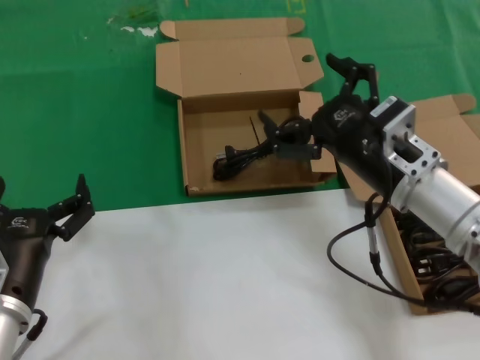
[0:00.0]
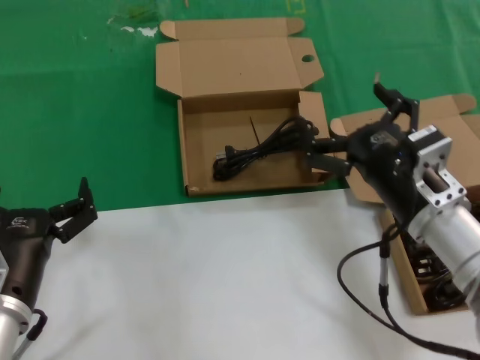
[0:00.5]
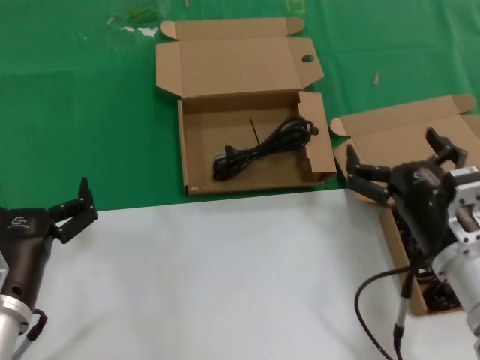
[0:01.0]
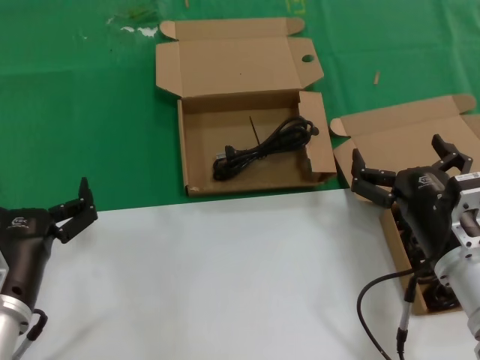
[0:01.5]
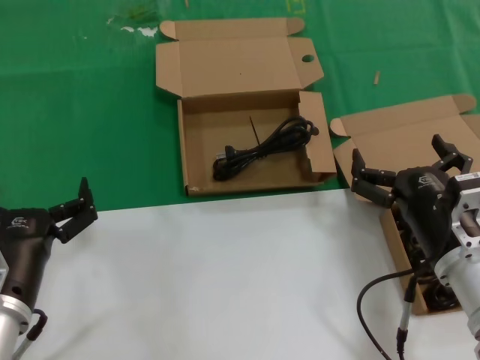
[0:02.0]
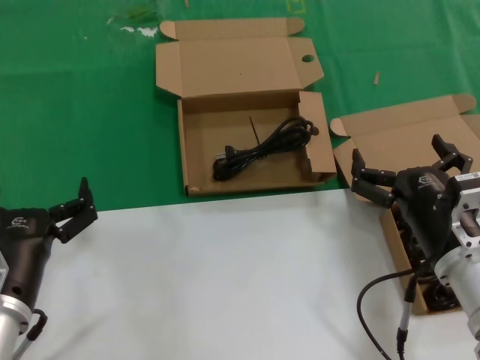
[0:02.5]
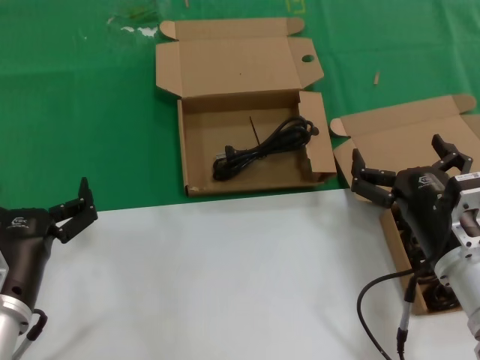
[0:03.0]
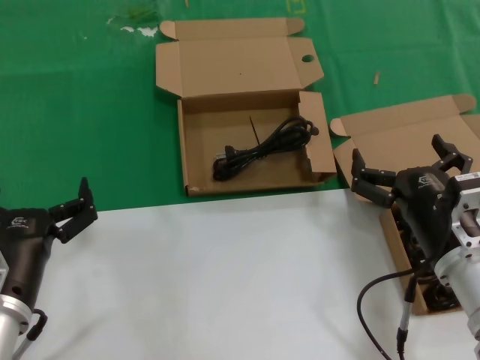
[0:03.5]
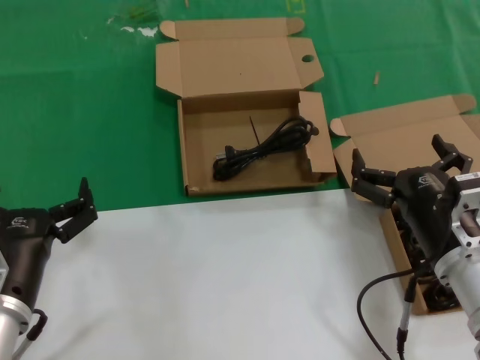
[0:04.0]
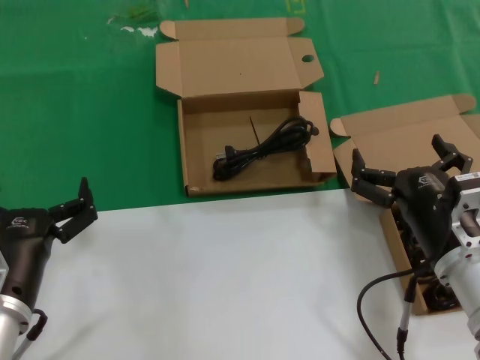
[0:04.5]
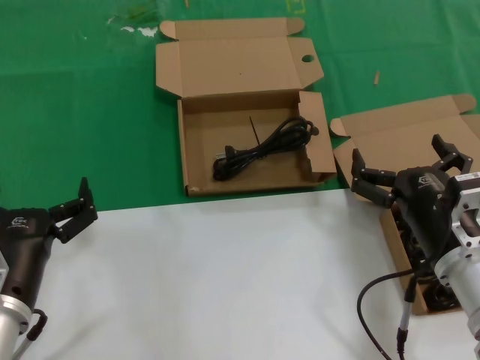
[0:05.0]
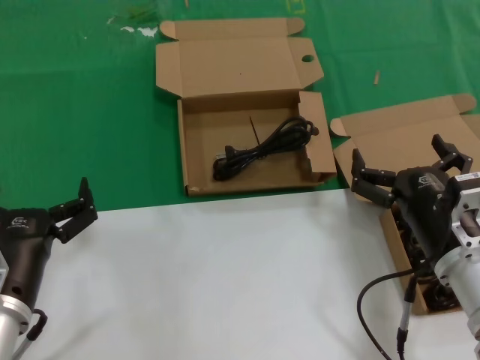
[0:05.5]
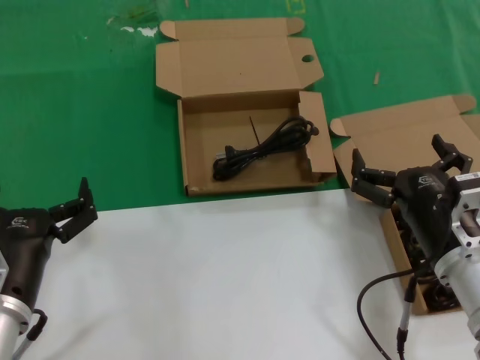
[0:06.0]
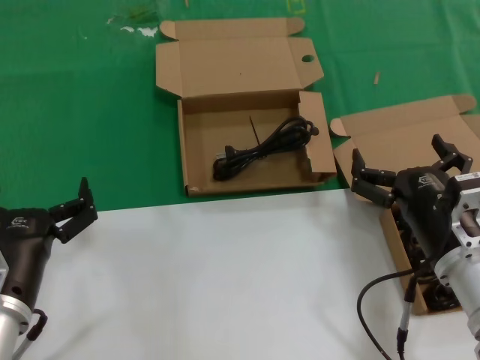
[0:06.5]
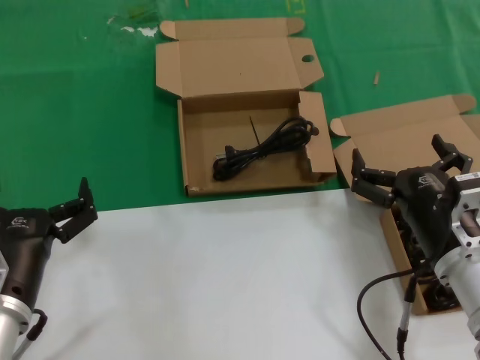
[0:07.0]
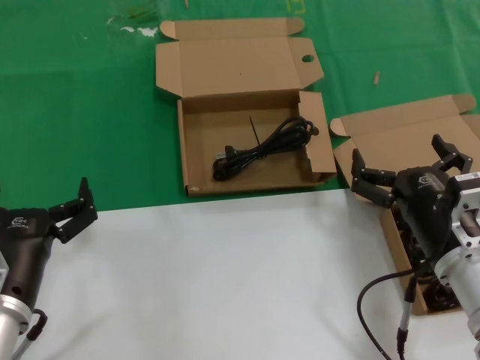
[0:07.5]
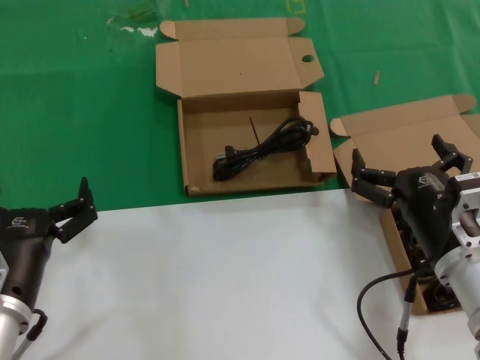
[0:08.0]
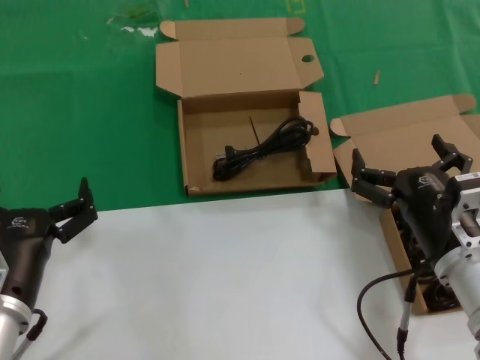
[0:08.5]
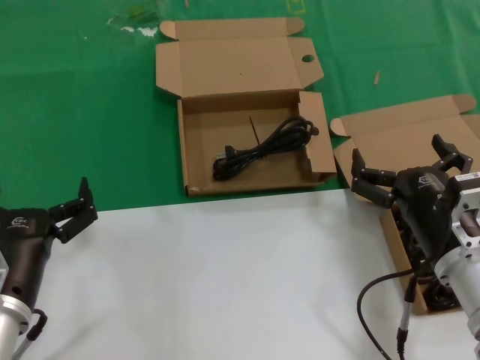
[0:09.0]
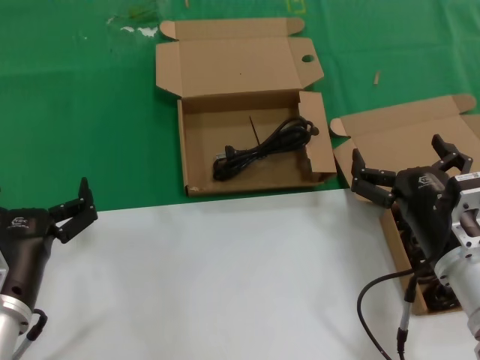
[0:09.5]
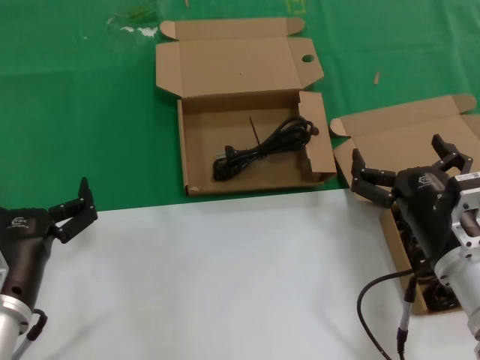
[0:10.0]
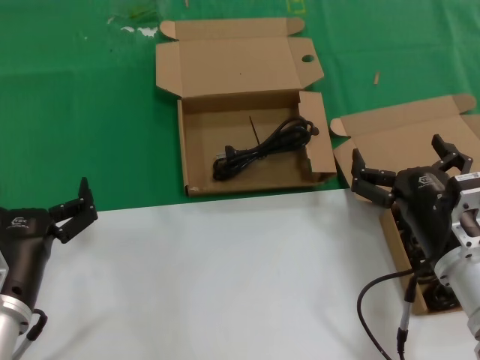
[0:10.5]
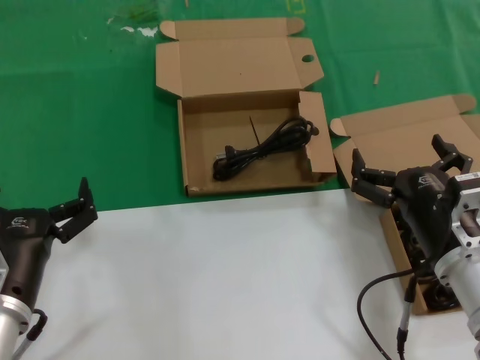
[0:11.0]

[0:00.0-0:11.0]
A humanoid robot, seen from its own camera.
Task of the whole recording: take the parts from the box containing them and put them into an empty box.
0:00.0 to 0:02.0: The right hand is displaced downward and backward by some 10 cm.
0:02.0 to 0:11.0: Both hands stay about where they are.
